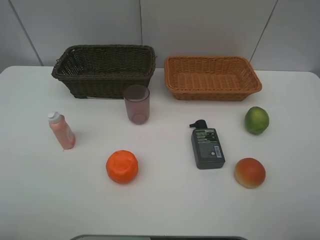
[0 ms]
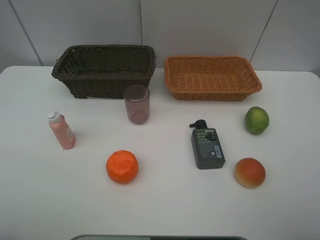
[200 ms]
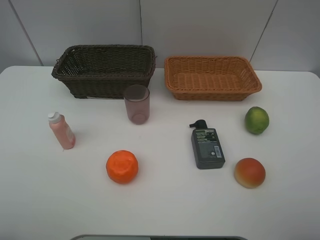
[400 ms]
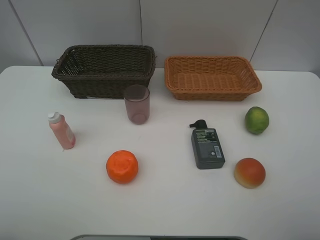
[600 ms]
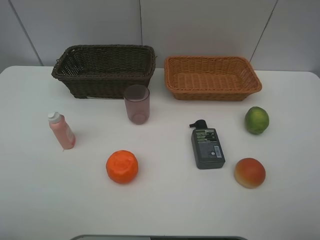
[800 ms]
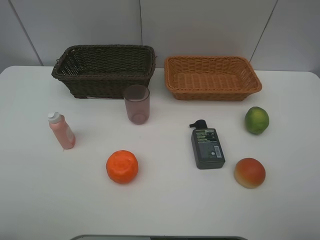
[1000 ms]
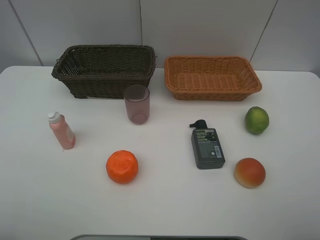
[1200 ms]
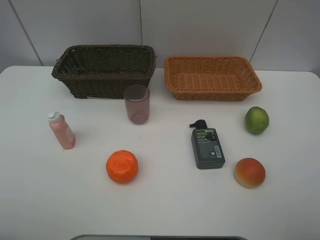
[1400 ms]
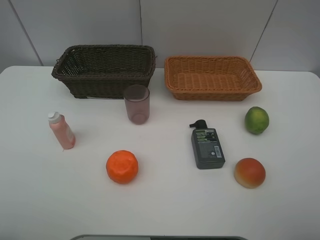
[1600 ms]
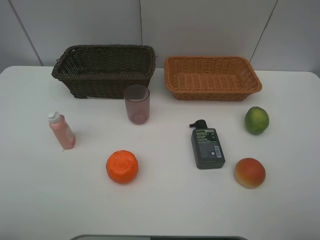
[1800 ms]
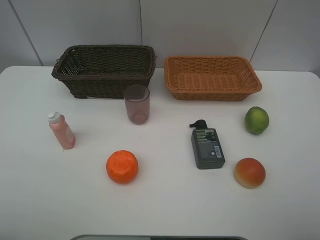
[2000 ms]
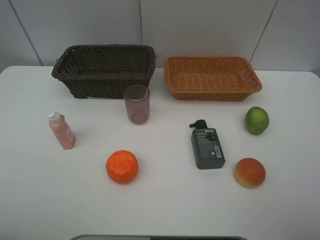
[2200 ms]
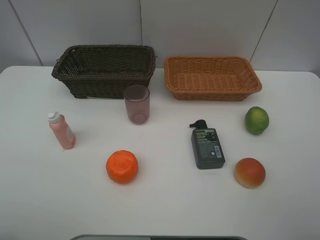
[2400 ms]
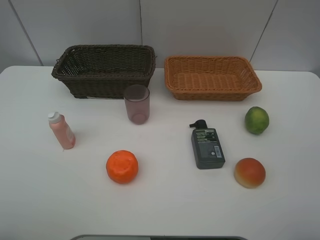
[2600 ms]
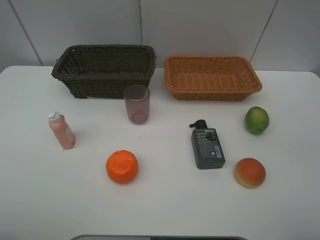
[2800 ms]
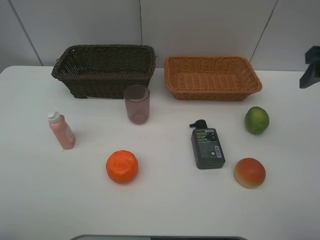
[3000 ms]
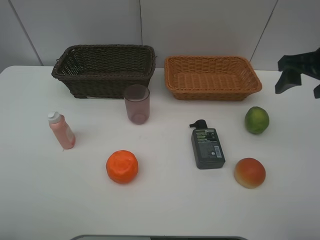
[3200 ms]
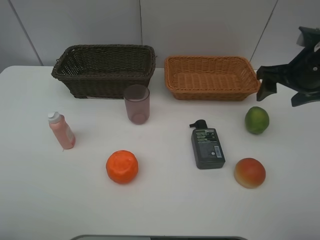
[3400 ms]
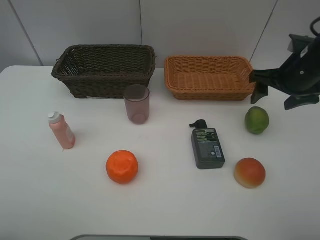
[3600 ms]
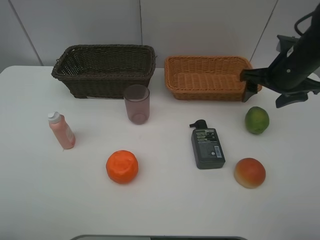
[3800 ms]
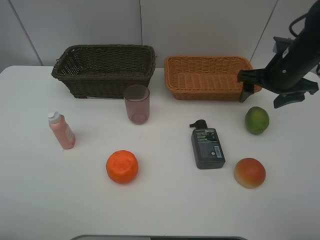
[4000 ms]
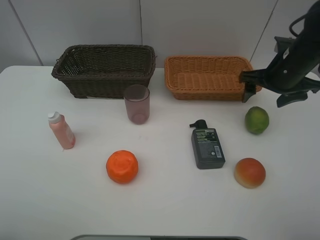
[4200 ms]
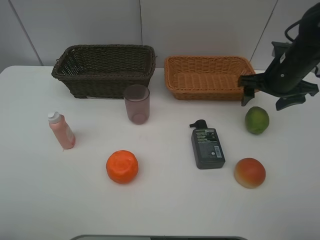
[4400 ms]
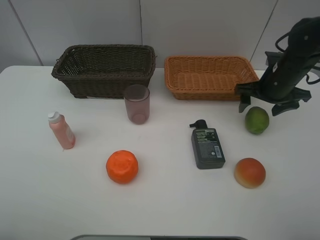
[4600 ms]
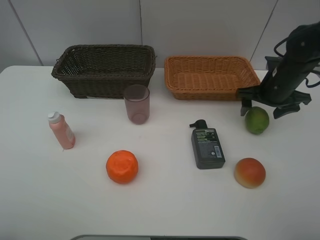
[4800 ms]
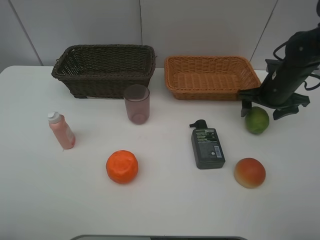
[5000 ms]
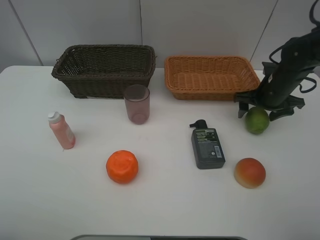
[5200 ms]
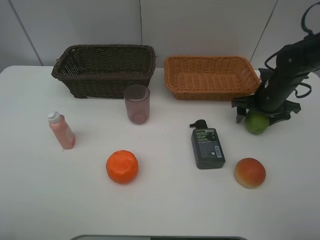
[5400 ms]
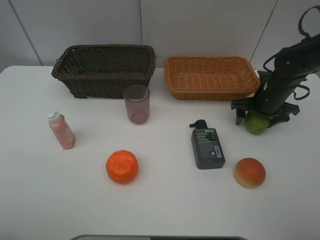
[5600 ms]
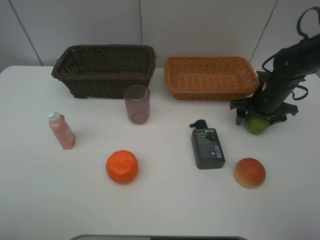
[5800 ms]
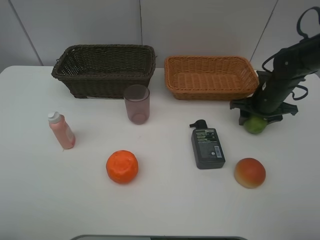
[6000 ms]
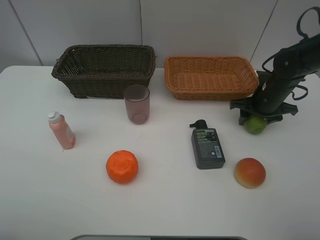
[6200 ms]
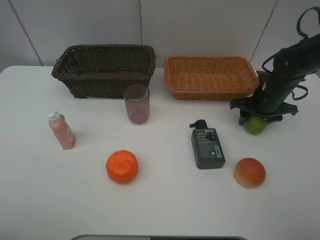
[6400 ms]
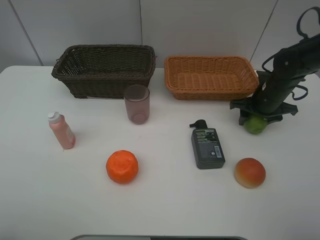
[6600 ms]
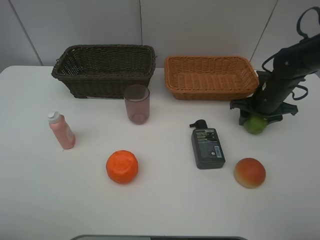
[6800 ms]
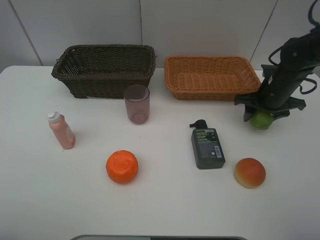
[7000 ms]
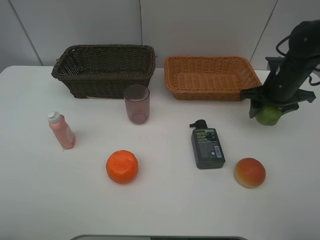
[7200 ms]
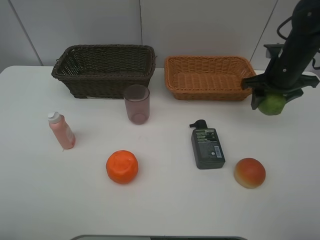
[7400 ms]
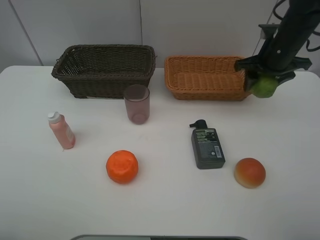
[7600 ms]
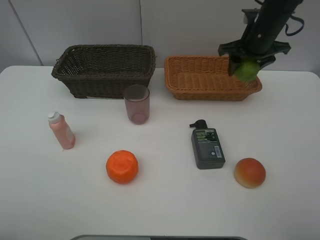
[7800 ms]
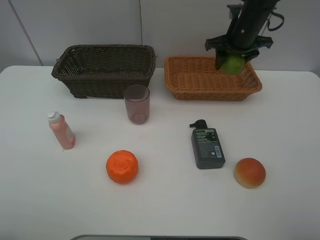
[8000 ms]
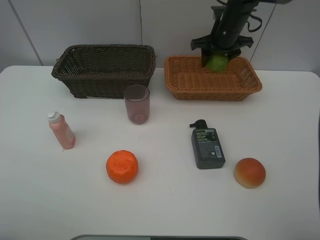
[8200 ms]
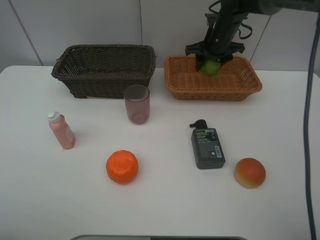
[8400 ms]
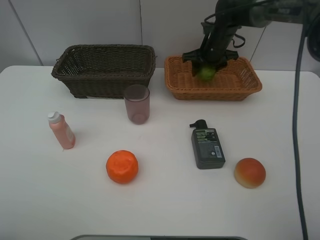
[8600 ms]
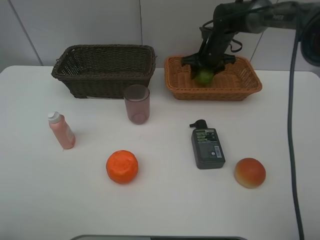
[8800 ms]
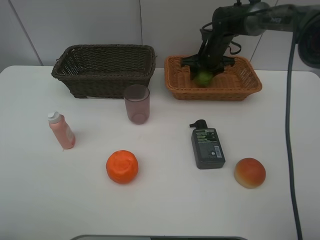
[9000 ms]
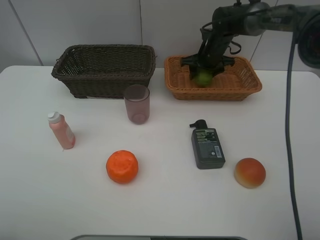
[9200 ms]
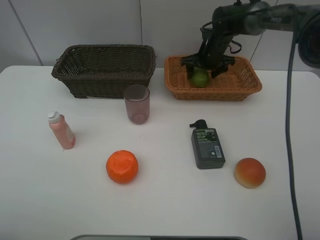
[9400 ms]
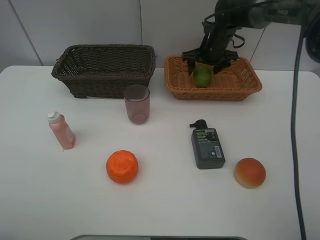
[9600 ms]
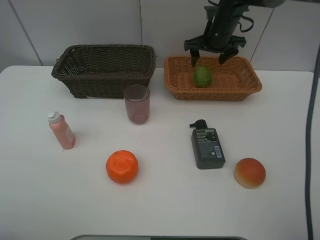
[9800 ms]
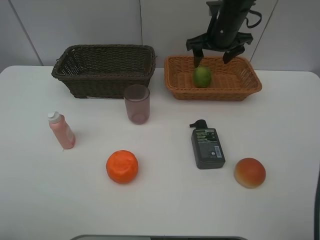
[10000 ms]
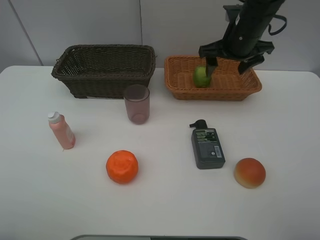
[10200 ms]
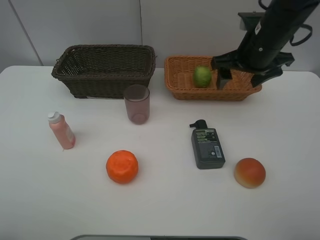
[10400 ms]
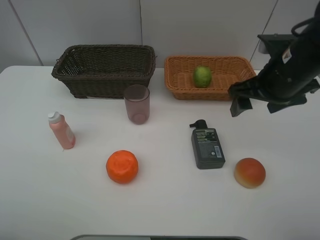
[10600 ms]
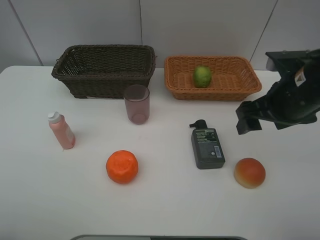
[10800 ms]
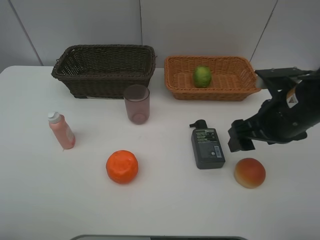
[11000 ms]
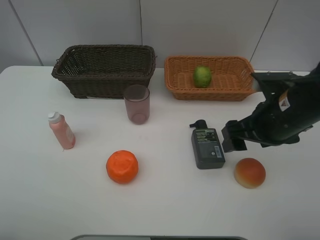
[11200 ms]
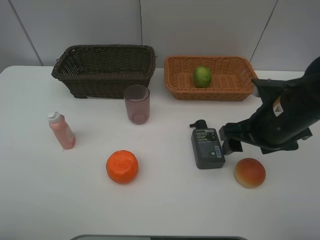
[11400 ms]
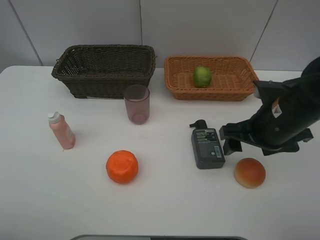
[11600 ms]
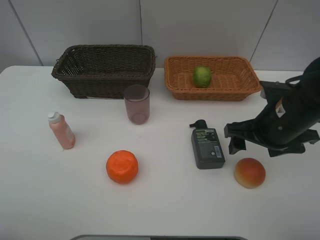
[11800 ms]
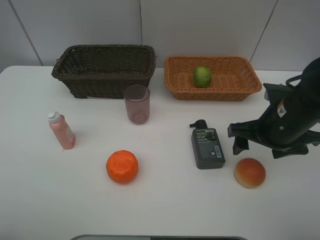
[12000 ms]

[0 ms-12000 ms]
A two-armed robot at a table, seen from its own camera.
Task of the whole recording: place multiple objects separately in different baskets.
0 ms to 1600 ms: Both grippers stay about where they are.
1600 ms to 3000 ms: The right gripper goes roughly 25 cm forward.
3000 ms to 4400 ms: The right gripper heads downward and forward, covering some 15 cm.
4400 ms to 6000 ms: The right gripper shifts approximately 10 cm downward, and closes up.
6000 ms to 7600 ms: The right gripper heads upward, covering about 10 cm.
7600 ms to 9000 ms: The right gripper travels forward, to the left and downward by approximately 20 cm.
9000 ms to 10400 ms: The right gripper moves backward and upward, some 20 cm, and opens up.
10400 ms to 12000 ms: The right gripper is displaced backward and downward by about 15 cm.

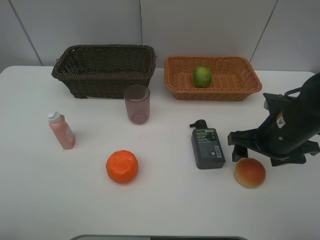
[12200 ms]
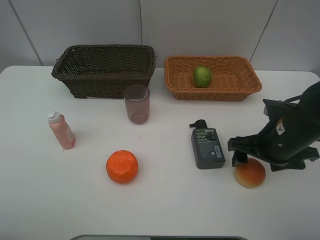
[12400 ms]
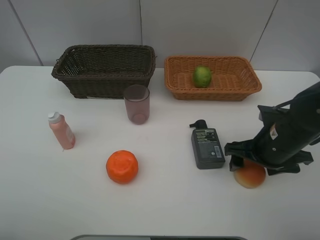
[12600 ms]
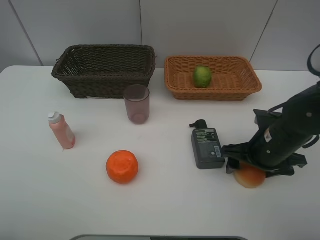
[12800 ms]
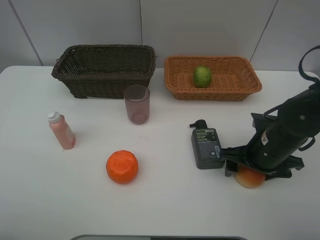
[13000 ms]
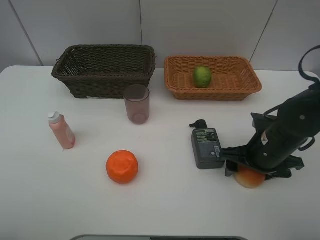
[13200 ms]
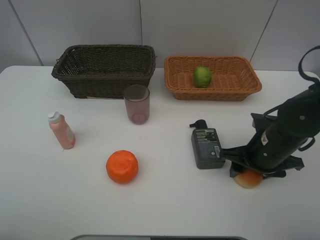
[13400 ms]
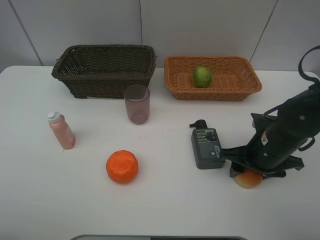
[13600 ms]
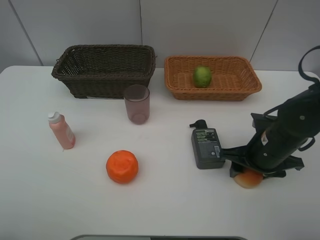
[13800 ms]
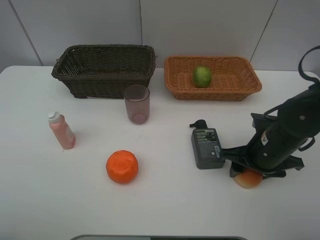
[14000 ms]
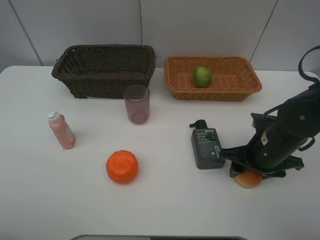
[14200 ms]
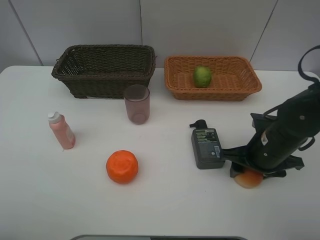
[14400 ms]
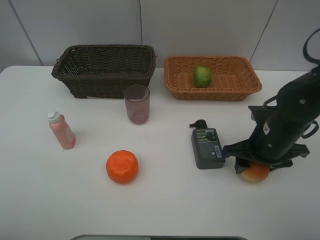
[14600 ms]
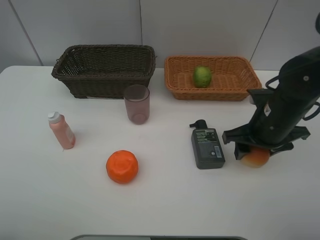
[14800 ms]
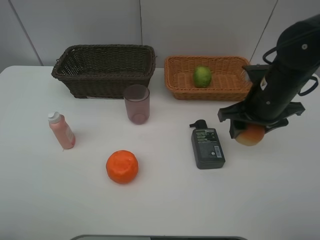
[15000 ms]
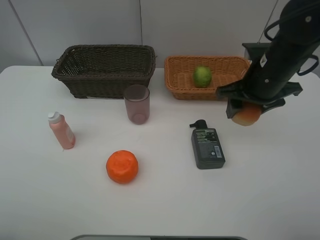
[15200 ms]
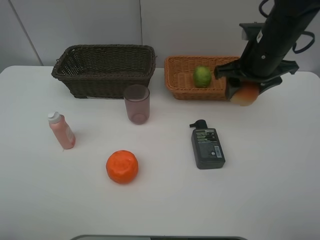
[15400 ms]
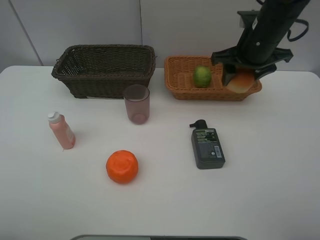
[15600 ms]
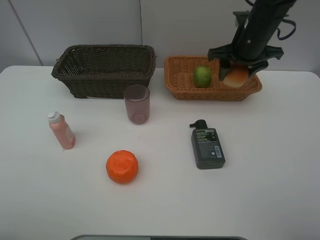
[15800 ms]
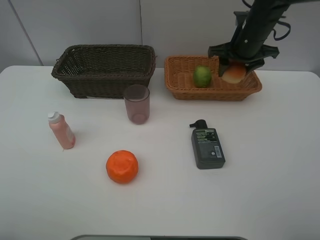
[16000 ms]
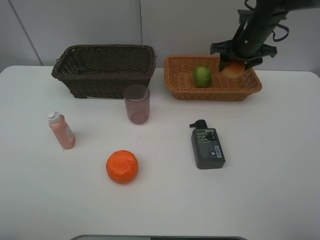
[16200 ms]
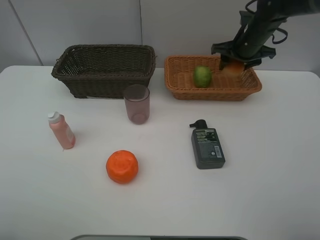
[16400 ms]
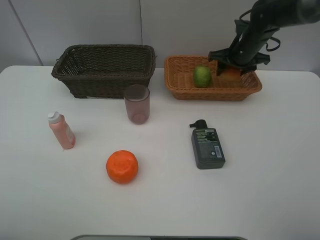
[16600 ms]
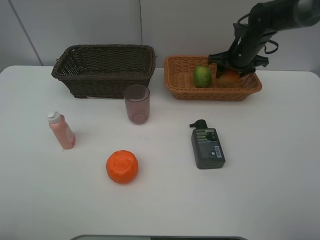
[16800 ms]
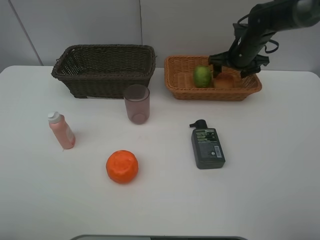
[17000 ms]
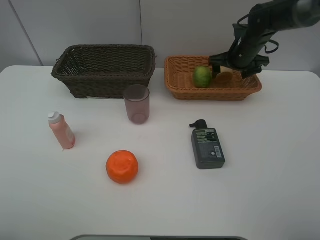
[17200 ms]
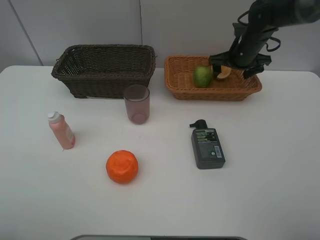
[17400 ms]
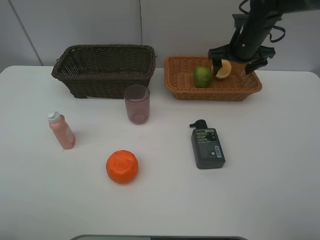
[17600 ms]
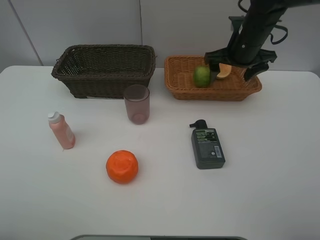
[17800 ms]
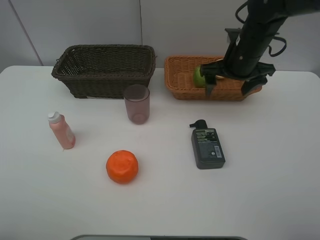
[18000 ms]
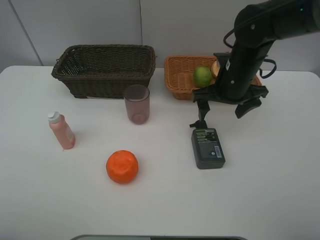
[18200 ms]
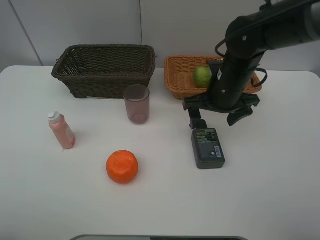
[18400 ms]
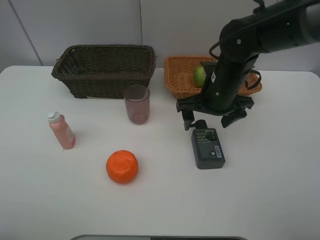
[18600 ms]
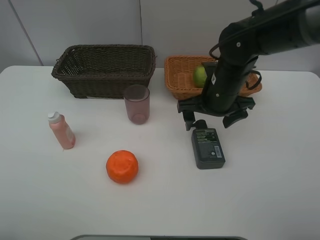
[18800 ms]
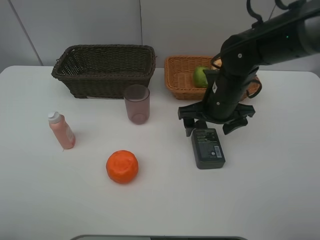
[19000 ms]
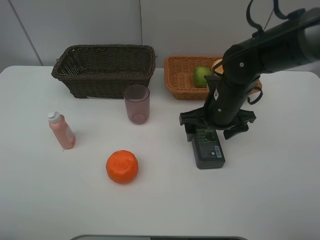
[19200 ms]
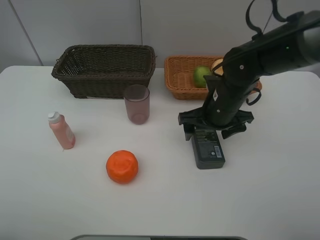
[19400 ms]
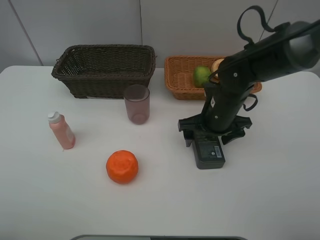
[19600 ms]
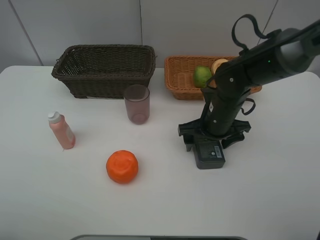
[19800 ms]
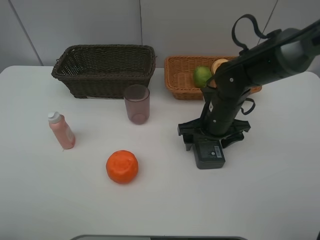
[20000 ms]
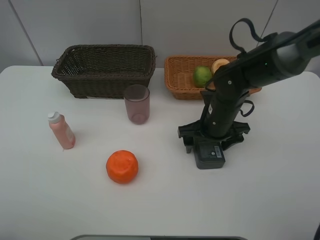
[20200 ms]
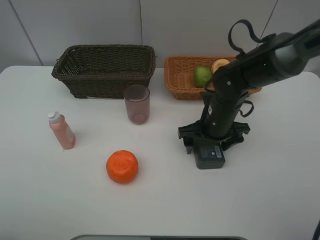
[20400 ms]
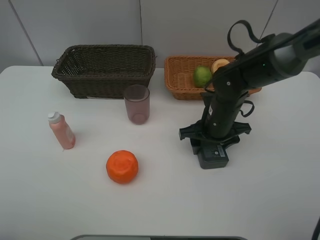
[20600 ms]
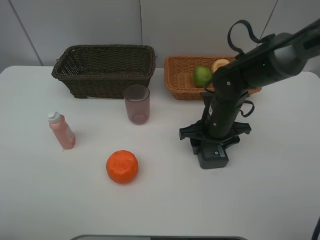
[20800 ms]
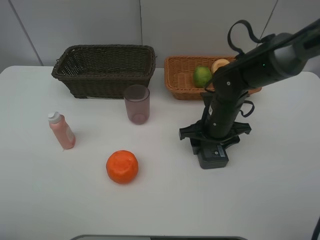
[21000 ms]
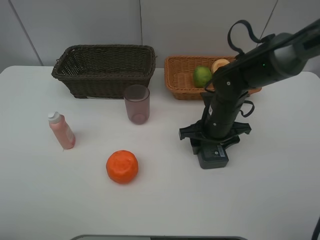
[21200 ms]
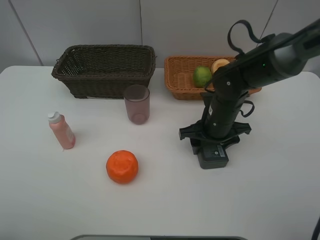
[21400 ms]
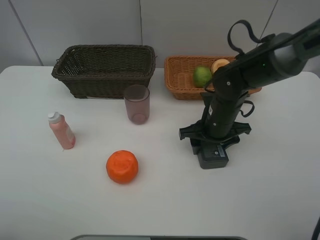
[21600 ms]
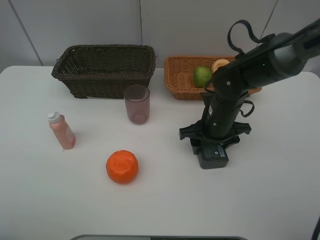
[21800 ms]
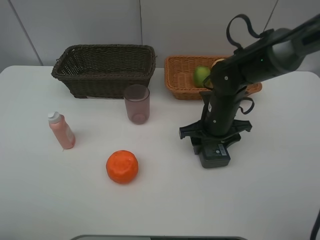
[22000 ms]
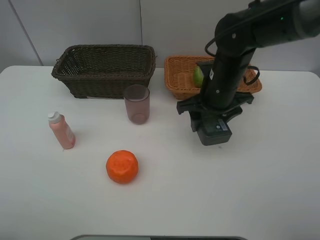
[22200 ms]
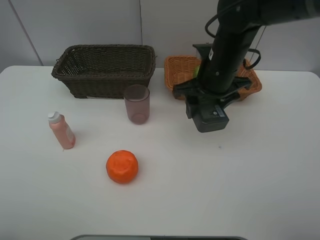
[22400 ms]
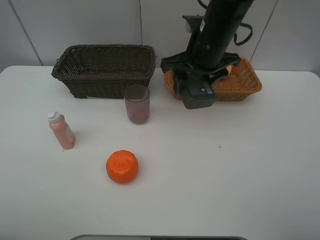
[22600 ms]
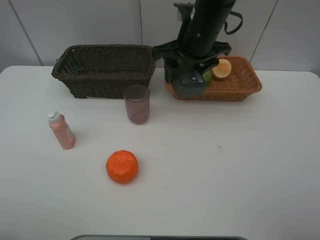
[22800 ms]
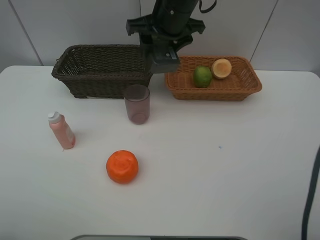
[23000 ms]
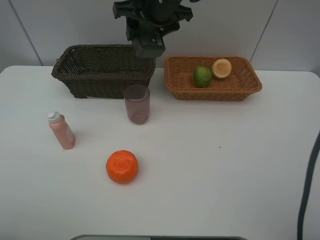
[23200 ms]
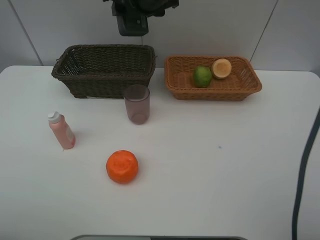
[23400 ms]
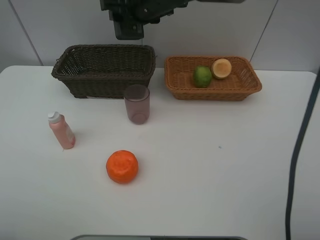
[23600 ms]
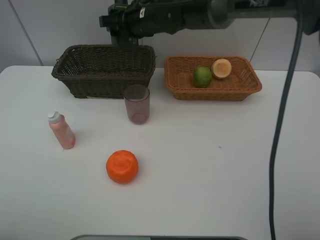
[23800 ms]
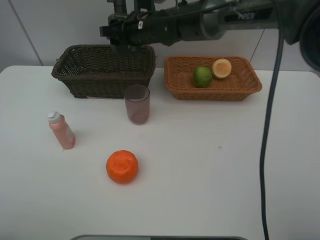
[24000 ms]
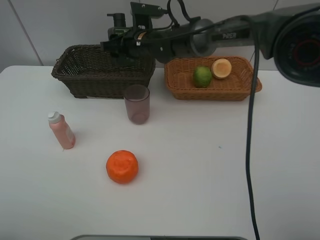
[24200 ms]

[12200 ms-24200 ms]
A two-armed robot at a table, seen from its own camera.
Task of the whole recording: place multiple objects separately in different baskets.
12200 ms to 13800 ms: The right gripper shifts some 5 cm downward, and closes.
13800 ms to 15200 ms: The right gripper is displaced upward and forward by roughly 15 cm.
15200 ms to 16600 ms: The right gripper shifts approximately 15 cm forward.
16600 ms to 18200 ms: The right gripper goes some 15 cm backward and to the left, and opens.
18200 ms to 19800 ms: The right gripper is displaced downward by about 5 cm.
19800 ms to 21200 ms: The right gripper closes up.
21200 ms to 22600 ms: The right gripper shifts approximately 15 cm upward.
22600 ms to 24200 ms: The right gripper shifts some 20 cm to the left, forward and downward.
